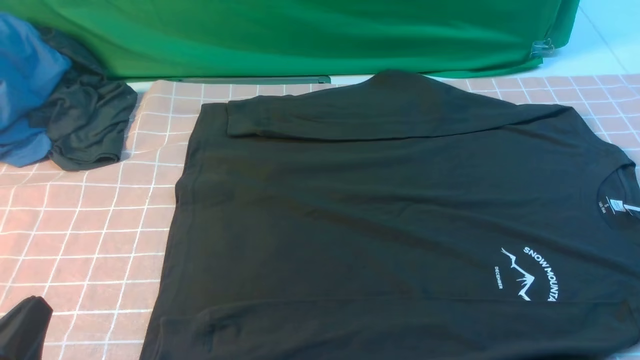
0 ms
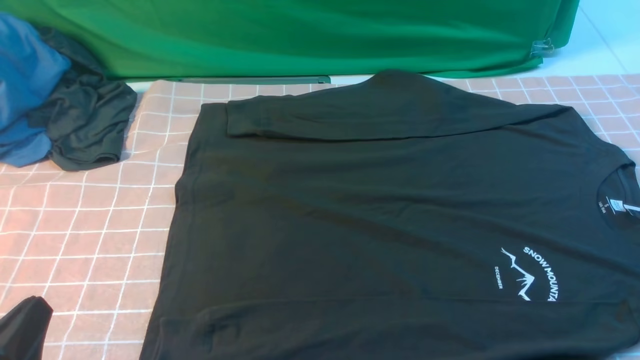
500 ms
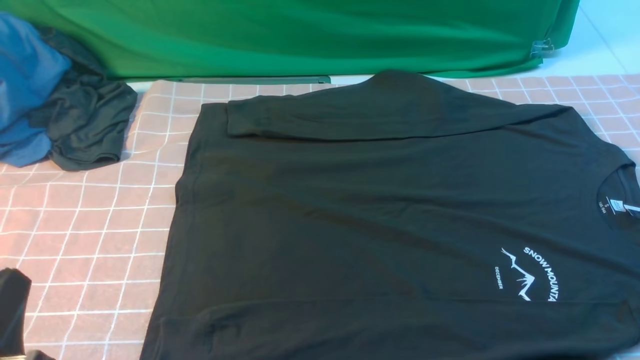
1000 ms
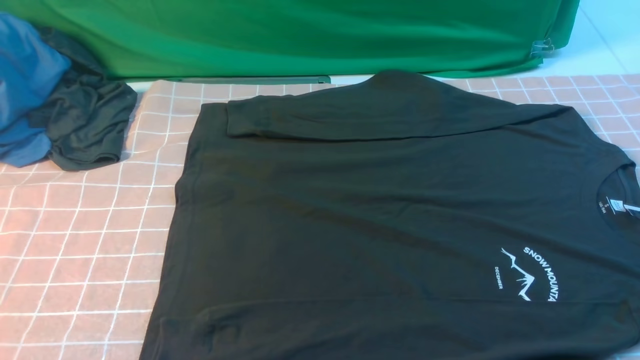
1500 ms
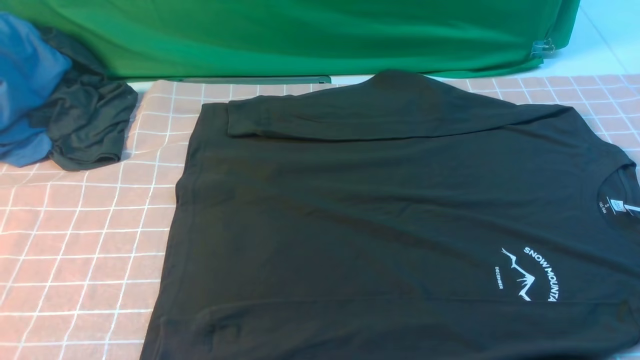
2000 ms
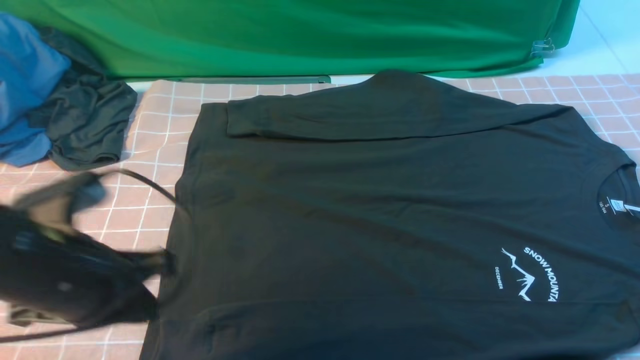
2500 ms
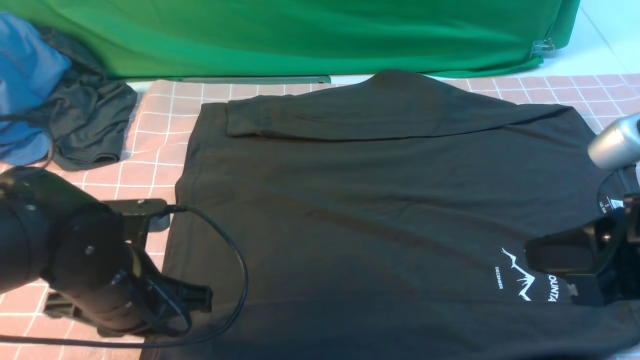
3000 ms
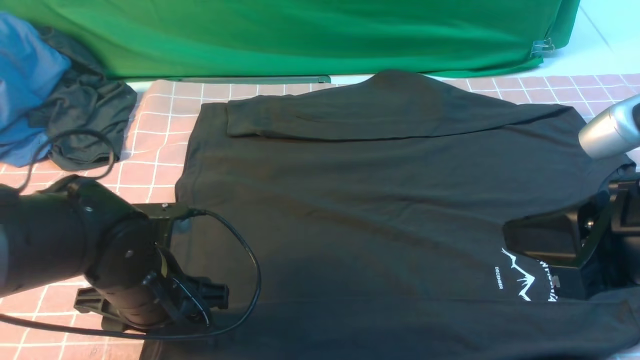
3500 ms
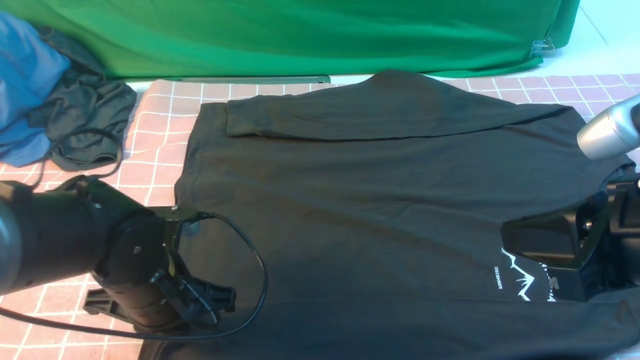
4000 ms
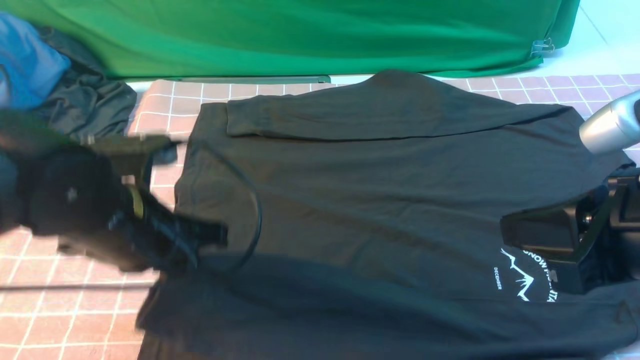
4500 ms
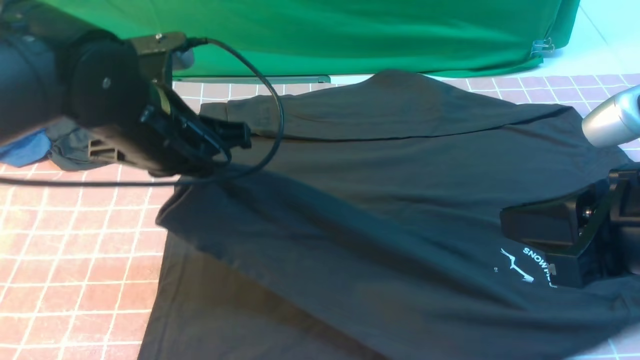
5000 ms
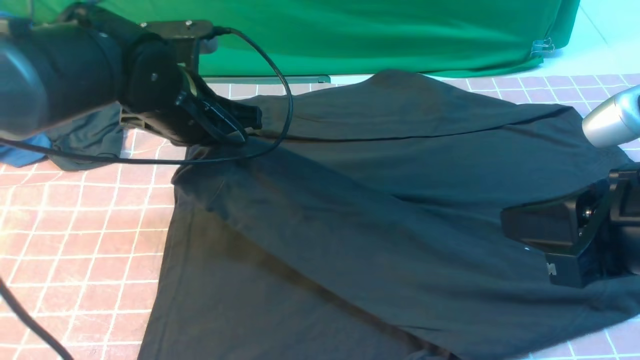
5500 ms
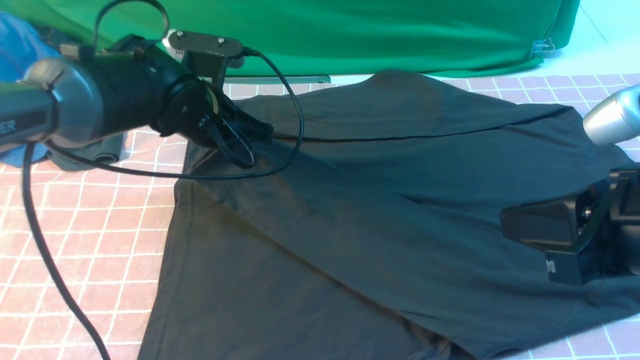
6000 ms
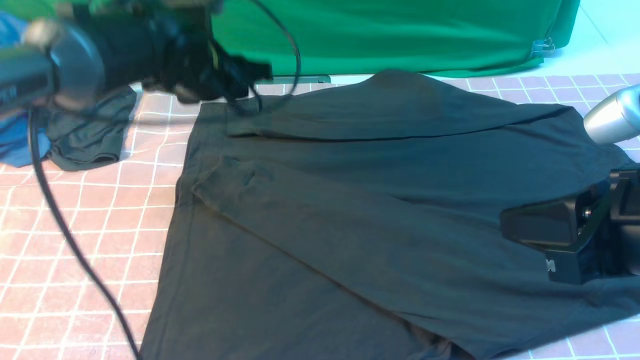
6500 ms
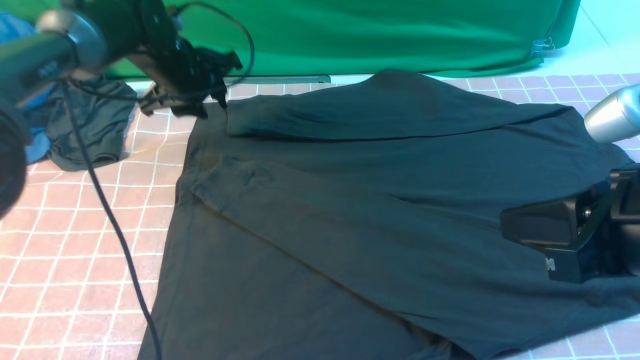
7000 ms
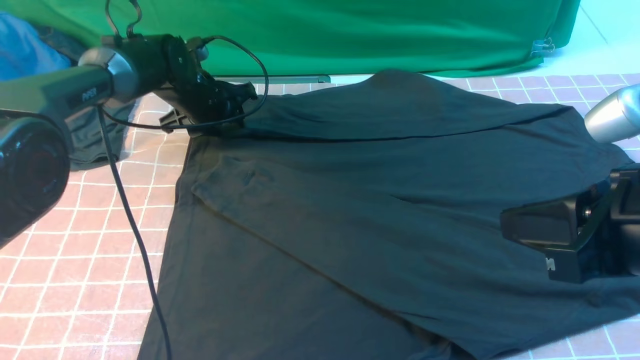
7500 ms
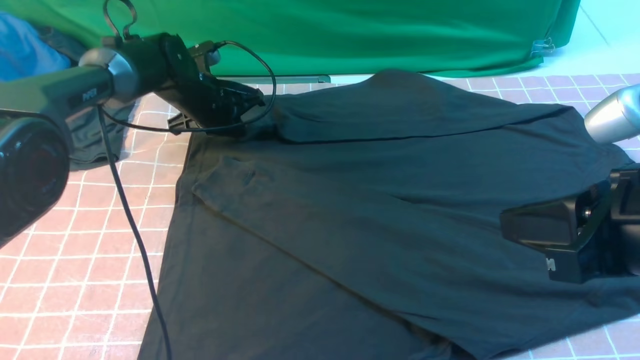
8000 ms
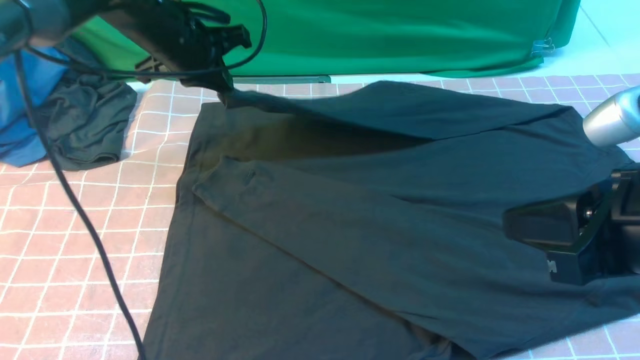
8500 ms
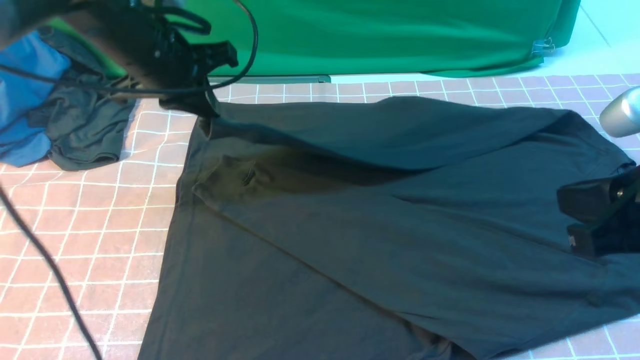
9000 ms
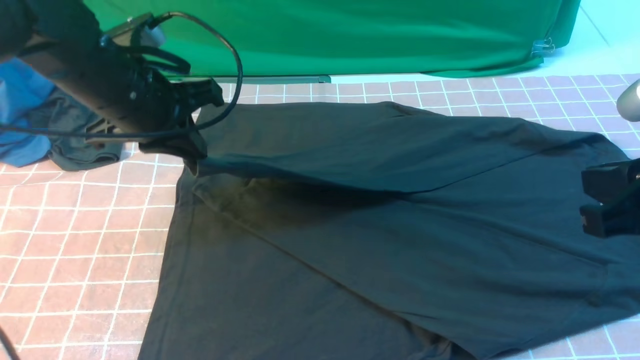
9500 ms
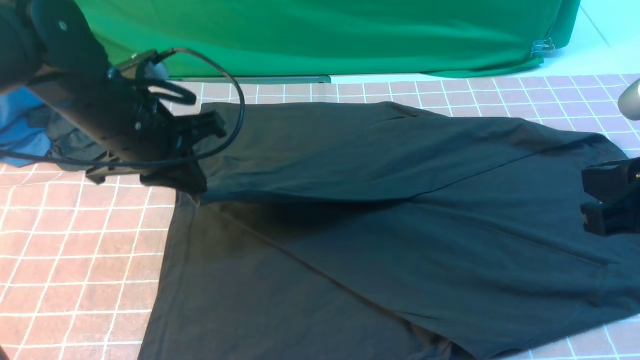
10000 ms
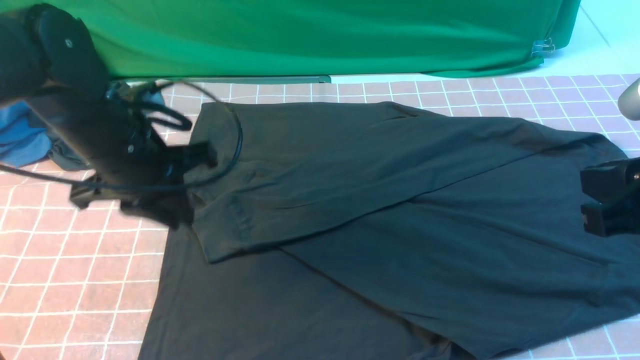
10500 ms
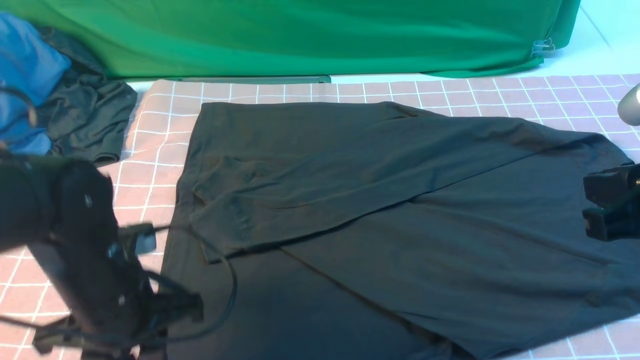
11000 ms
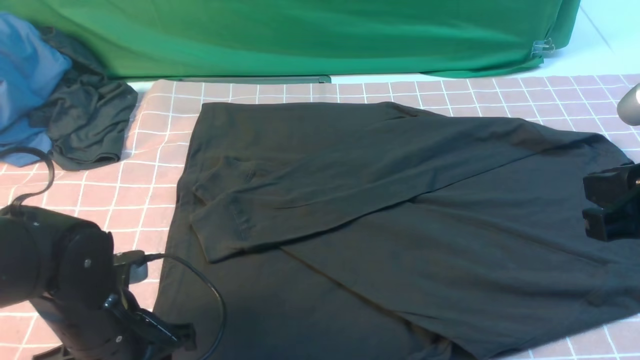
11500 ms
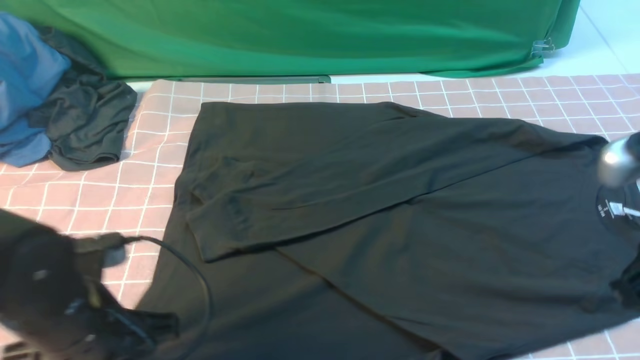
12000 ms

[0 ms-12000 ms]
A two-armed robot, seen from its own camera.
Step, 0 ms to 4000 ms: use the left arm to clamp the cuff closest to it.
Step, 4500 ms to 6000 ms: use the left arm to drag and place the cuff at the centered position on the left edge of the fabric.
Step, 6500 ms to 7500 ms: use the left arm to clamp the cuff farthest from it.
Step, 8000 ms to 10000 ms: use the left arm to drag and drop the cuff onto the cuff closest to the left arm.
0 ms to 2000 ms: The left gripper is displaced upward by some 15 cm.
2000 ms to 4000 ms: The right gripper shifts approximately 15 cm to the left, forward and upward. The left gripper travels downward, forward and to the right by some 20 cm, and opens and closes again.
4000 ms to 6000 ms: The left gripper is displaced forward by about 15 cm.
6000 ms to 8000 ms: The left gripper moves forward and downward, about 10 cm, and opens and closes again.
8000 ms to 10000 ms: The left gripper heads backward and upward, covering some 20 cm.
10000 ms to 12000 ms: The left gripper heads backward and downward, covering roughly 15 cm, and opens and closes again.

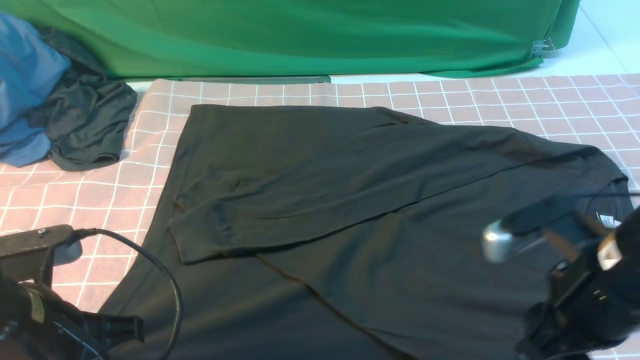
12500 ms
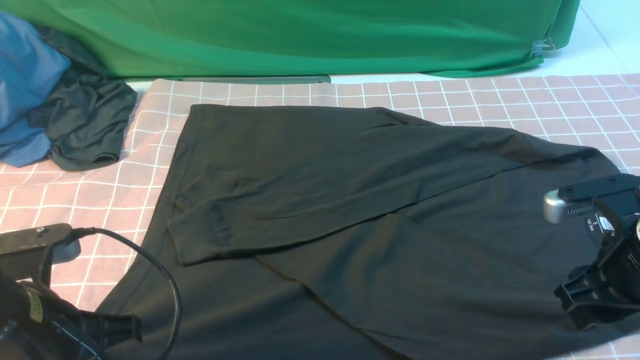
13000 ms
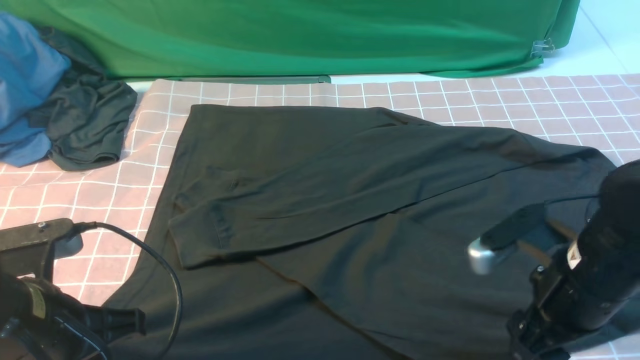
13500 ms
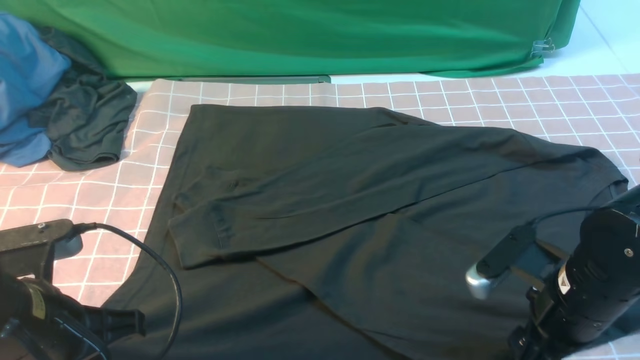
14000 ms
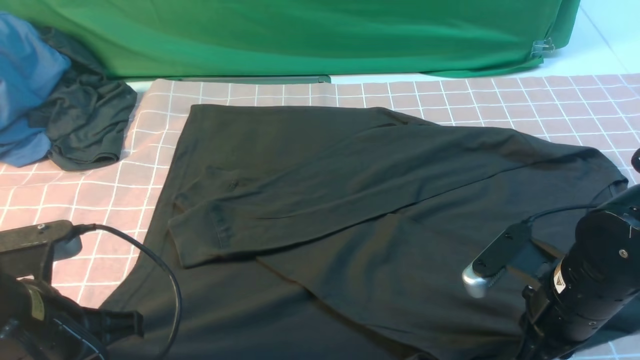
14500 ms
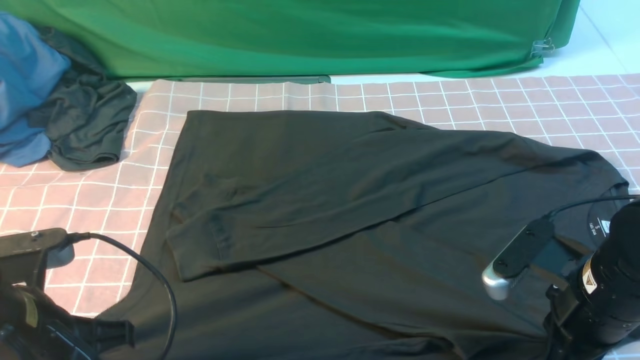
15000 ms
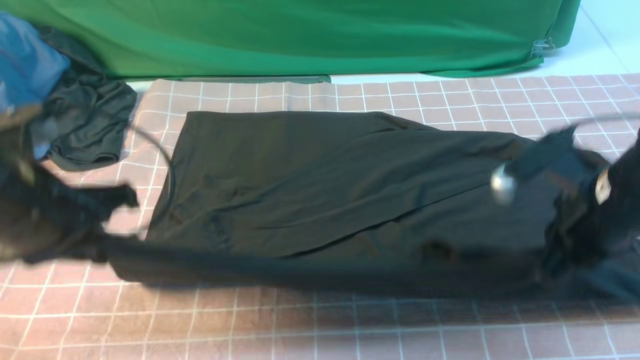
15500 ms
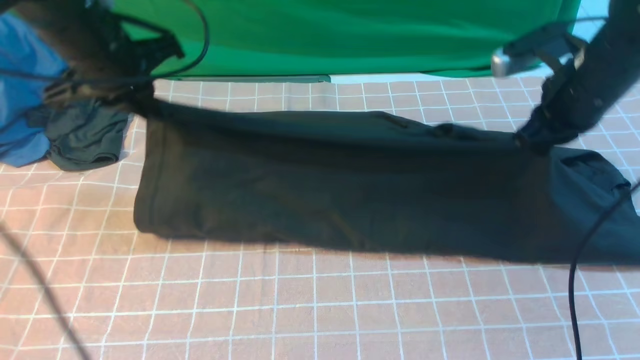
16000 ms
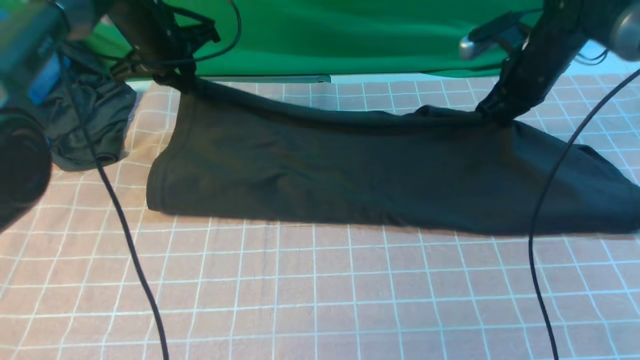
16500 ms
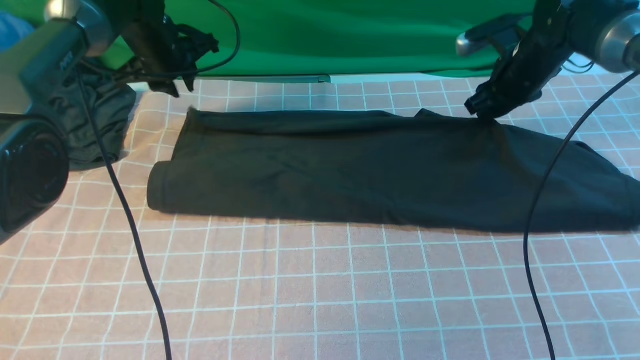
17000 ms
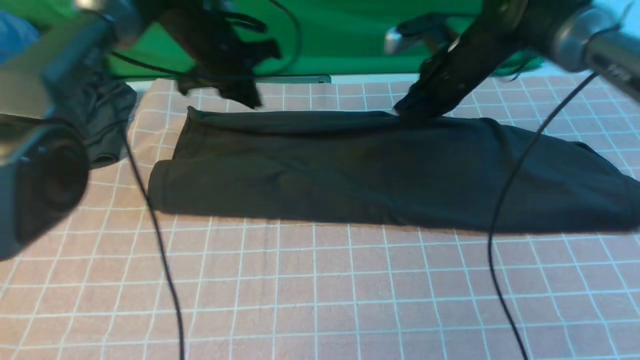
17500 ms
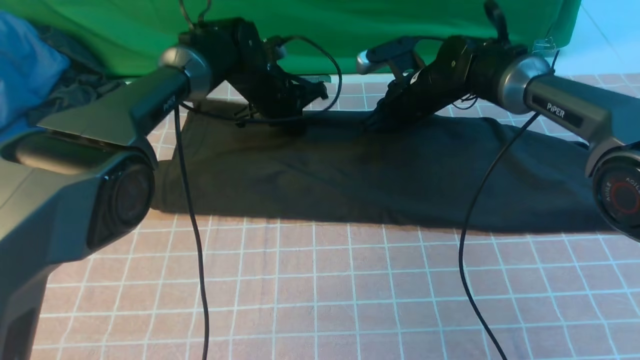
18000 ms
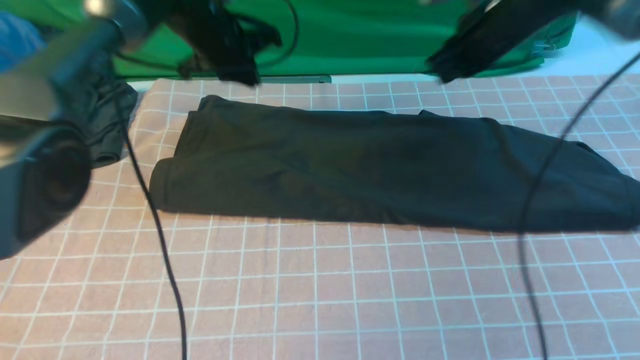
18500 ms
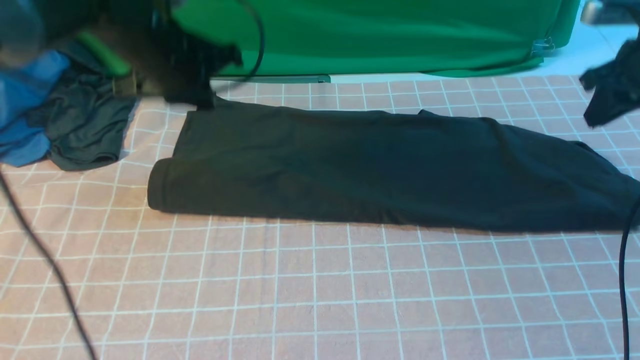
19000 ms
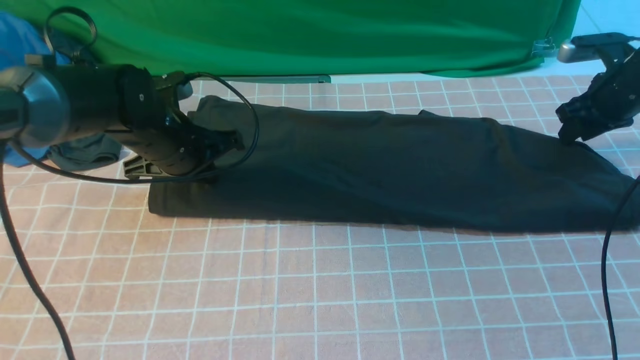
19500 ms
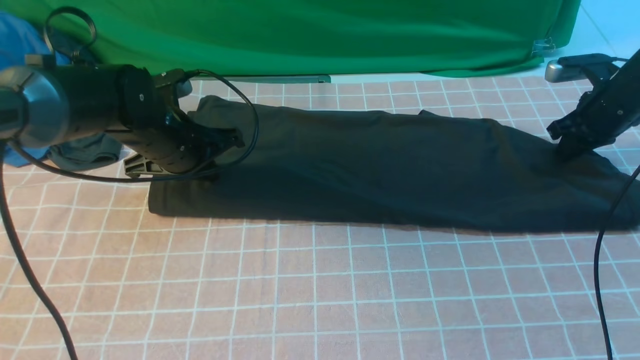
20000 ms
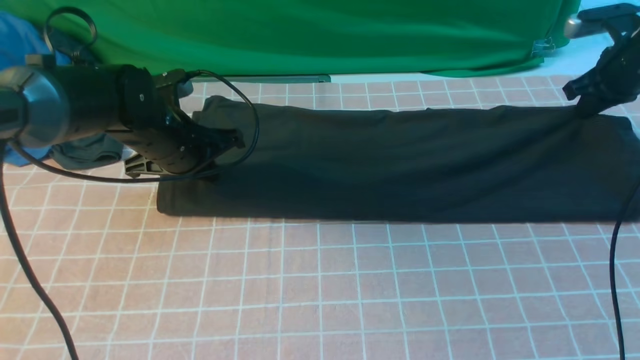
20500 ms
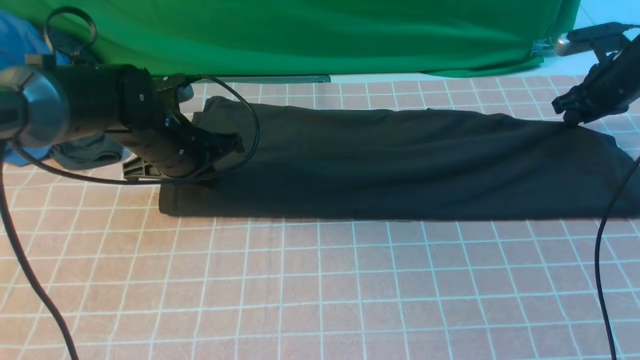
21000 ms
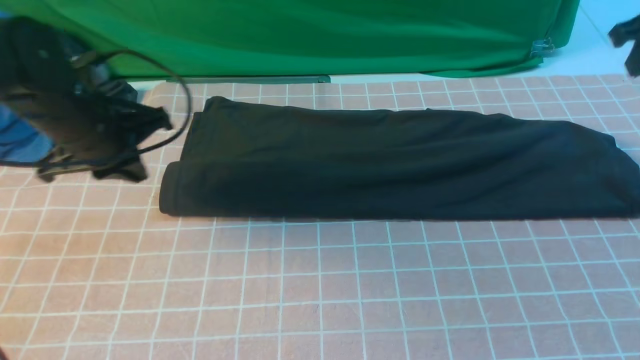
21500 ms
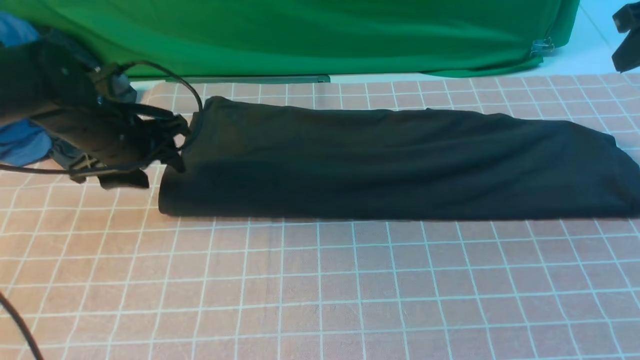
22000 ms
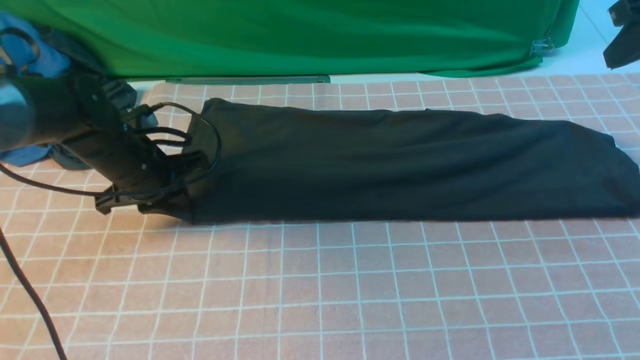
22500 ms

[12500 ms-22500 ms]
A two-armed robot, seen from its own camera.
Step, 12500 ms to 15000 ms: use both arms simultaneously to clamp the lower edge of the clothing fabric.
Step, 15500 ms to 21500 ms: use both arms to drag the lower edge of the fabric forward and fold it over the upper edge.
12500 ms to 14500 ms: The right gripper moves downward, roughly 5 cm, and closes up.
14500 ms to 16500 ms: Both grippers travel together forward, about 30 cm.
16500 ms to 18500 ms: The right gripper is displaced upward by some 5 cm, travels to the left and back again, about 15 cm each way, and opens, then closes once more. Meanwhile the left gripper goes approximately 5 cm to the right, and opens, then closes once more.
18500 ms to 20500 ms: The left gripper is displaced backward and downward by about 15 cm. The right gripper shifts approximately 15 cm to the right and downward, and opens and closes again.
20500 ms to 22500 ms: The right gripper travels upward and backward by some 15 cm, and opens, then closes again, while the left gripper shifts roughly 5 cm to the left, and opens its fingers.
